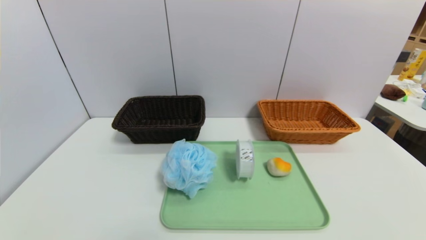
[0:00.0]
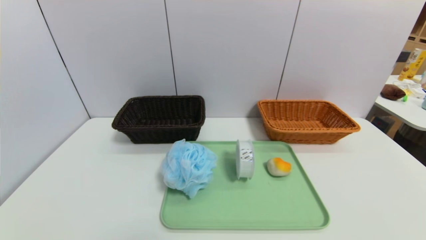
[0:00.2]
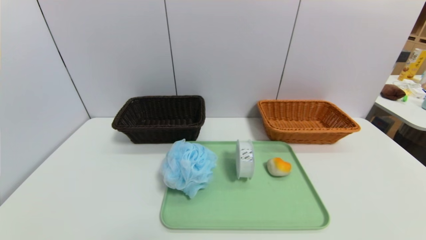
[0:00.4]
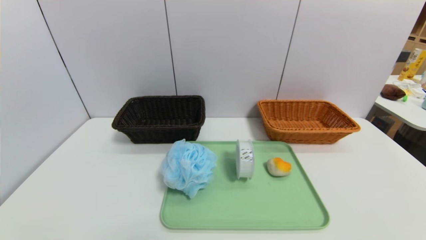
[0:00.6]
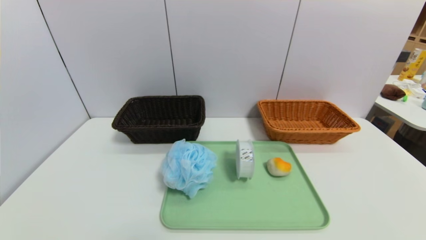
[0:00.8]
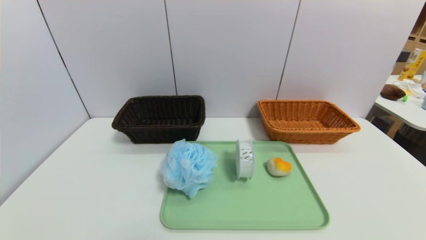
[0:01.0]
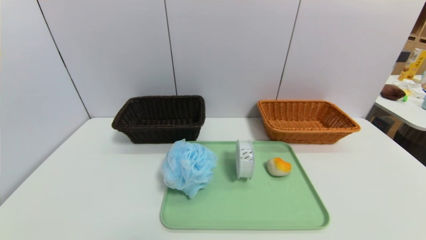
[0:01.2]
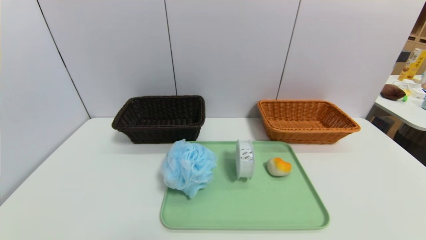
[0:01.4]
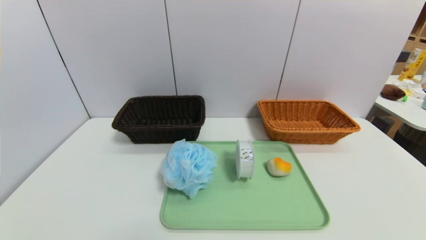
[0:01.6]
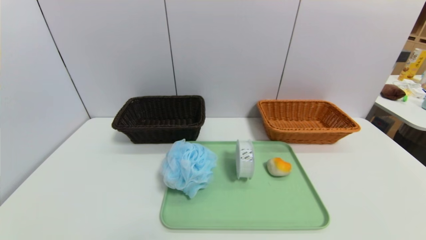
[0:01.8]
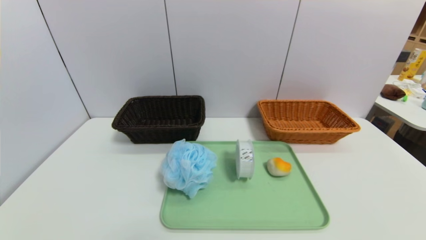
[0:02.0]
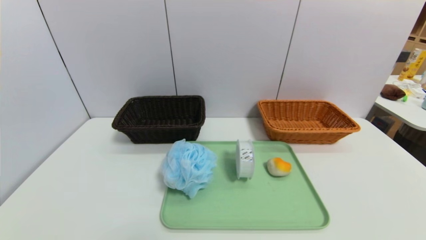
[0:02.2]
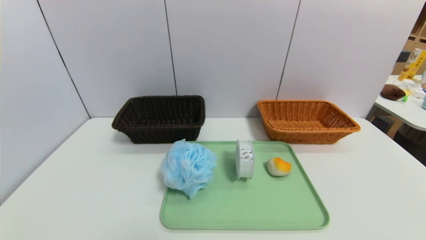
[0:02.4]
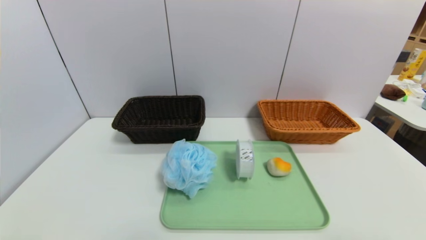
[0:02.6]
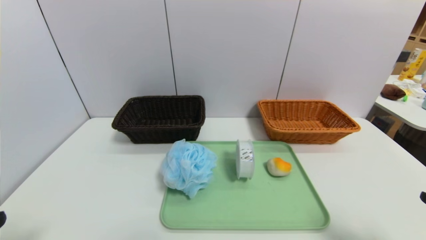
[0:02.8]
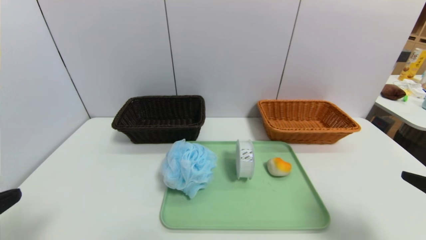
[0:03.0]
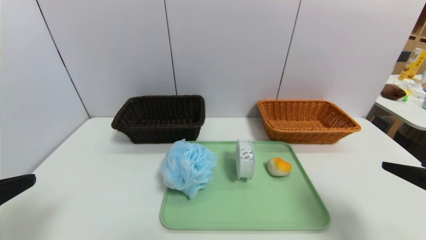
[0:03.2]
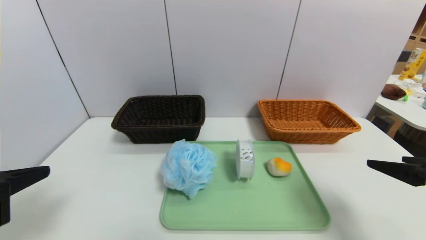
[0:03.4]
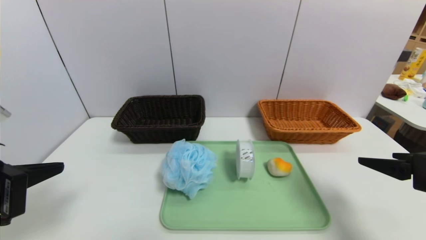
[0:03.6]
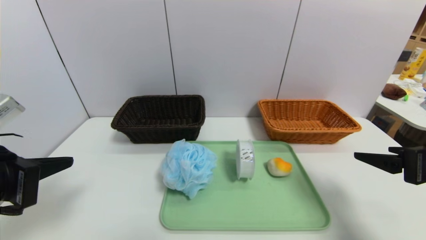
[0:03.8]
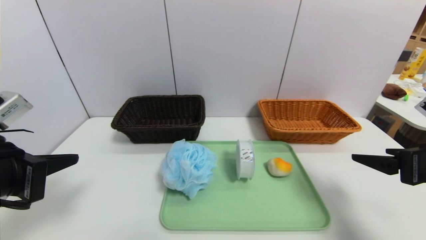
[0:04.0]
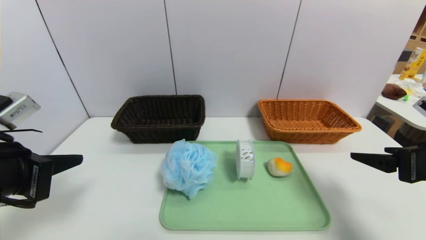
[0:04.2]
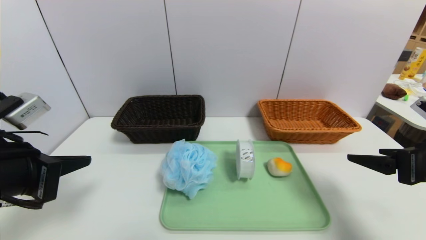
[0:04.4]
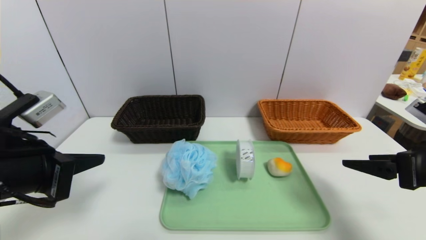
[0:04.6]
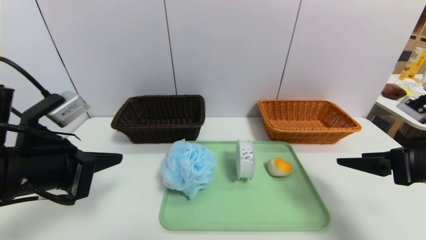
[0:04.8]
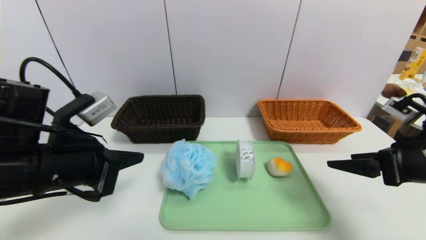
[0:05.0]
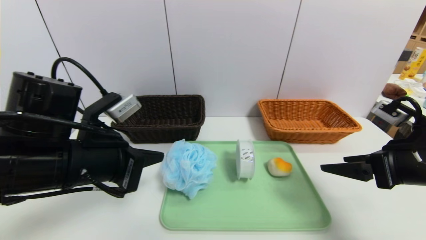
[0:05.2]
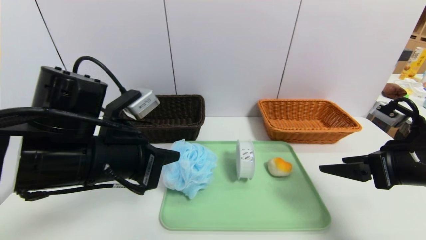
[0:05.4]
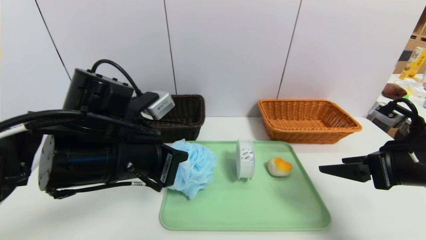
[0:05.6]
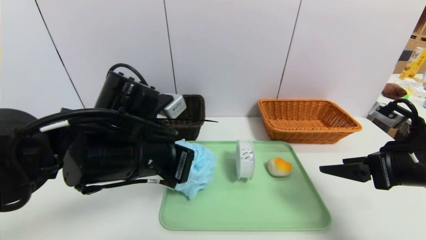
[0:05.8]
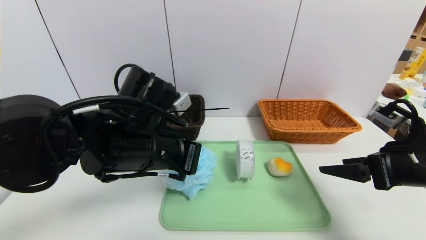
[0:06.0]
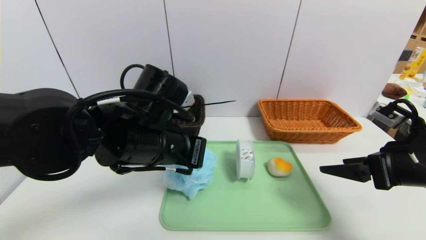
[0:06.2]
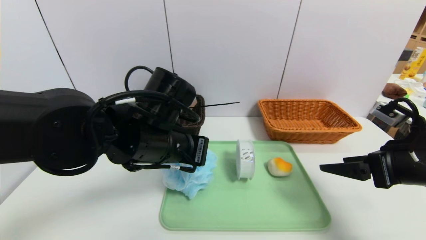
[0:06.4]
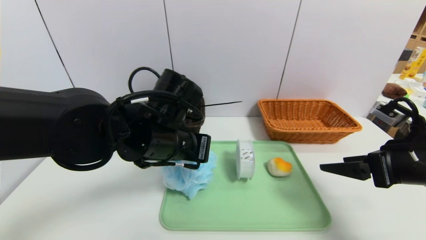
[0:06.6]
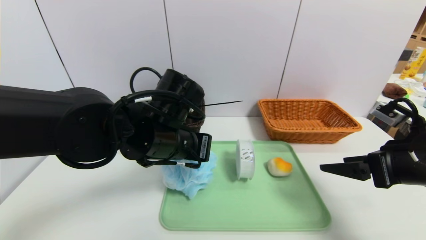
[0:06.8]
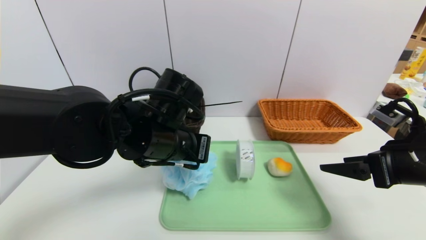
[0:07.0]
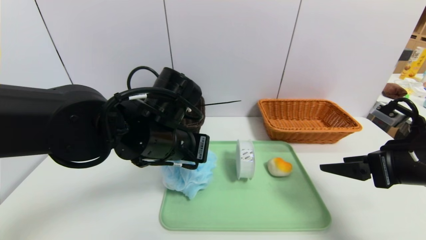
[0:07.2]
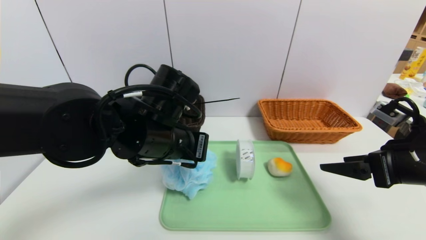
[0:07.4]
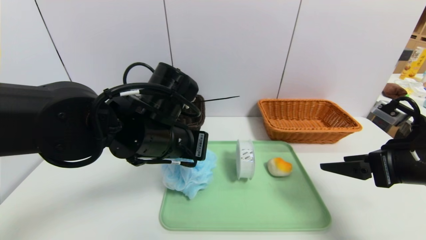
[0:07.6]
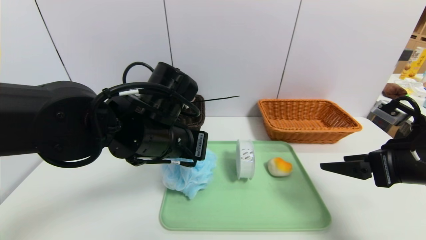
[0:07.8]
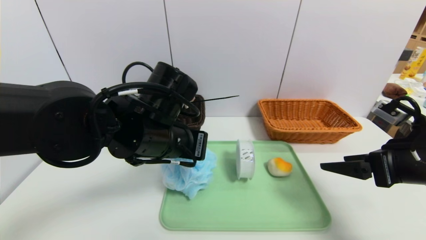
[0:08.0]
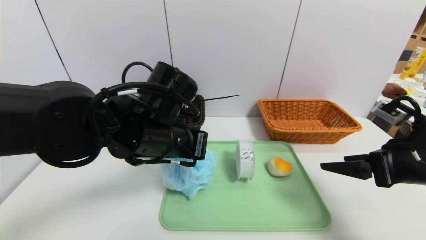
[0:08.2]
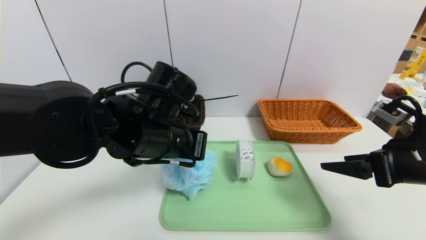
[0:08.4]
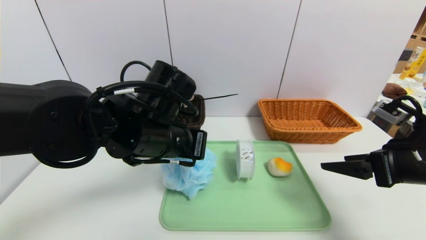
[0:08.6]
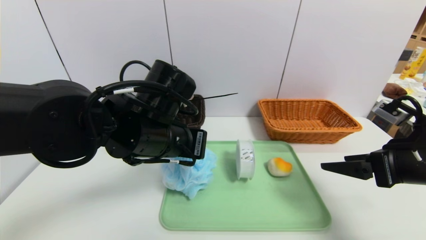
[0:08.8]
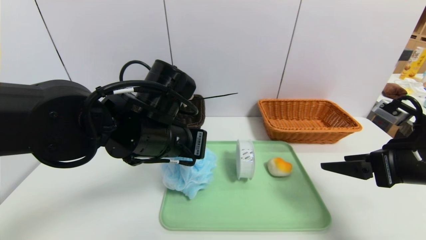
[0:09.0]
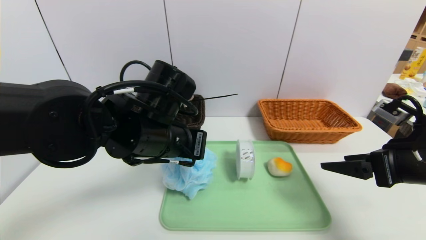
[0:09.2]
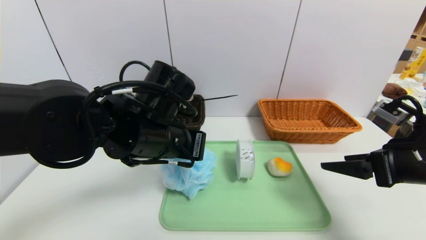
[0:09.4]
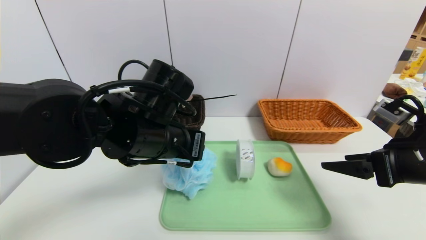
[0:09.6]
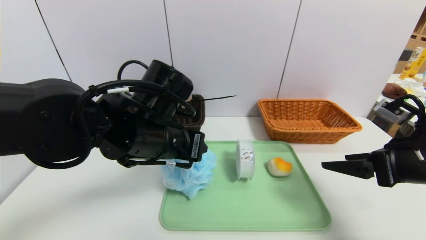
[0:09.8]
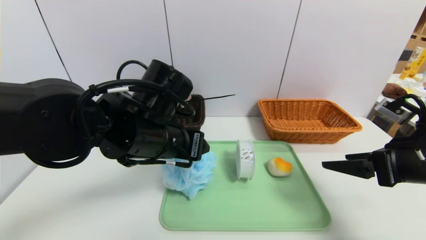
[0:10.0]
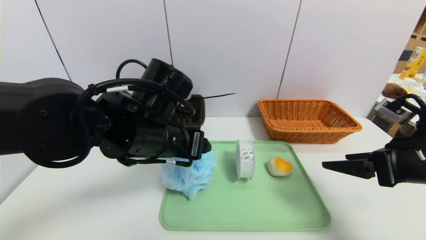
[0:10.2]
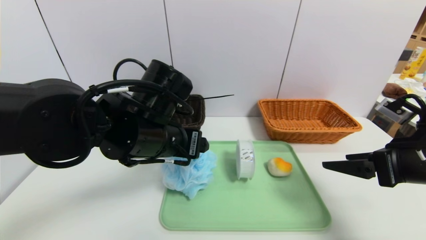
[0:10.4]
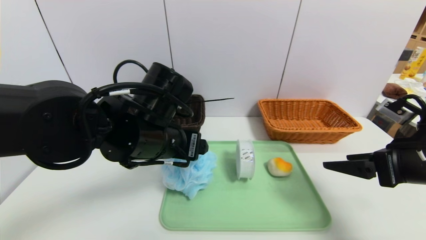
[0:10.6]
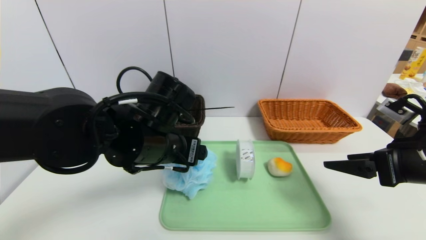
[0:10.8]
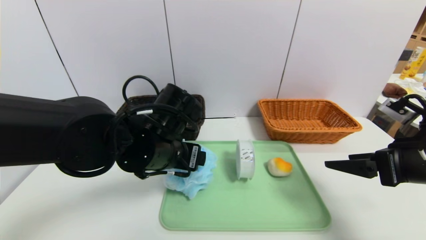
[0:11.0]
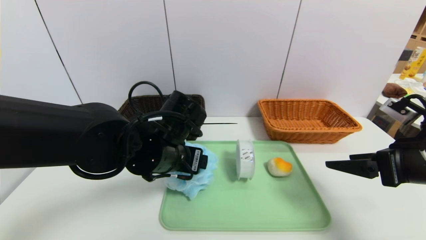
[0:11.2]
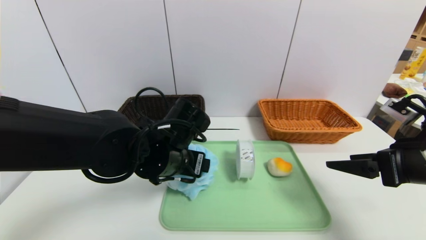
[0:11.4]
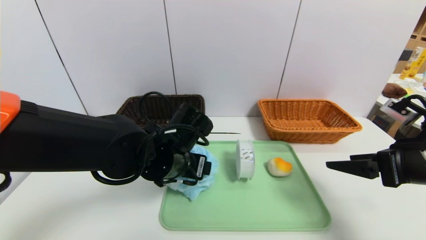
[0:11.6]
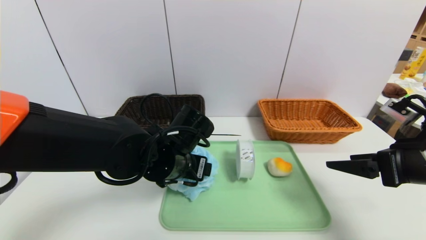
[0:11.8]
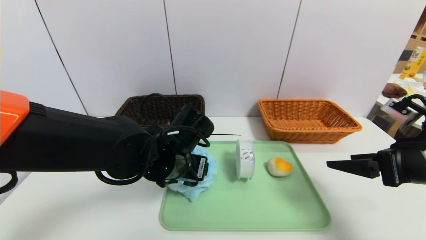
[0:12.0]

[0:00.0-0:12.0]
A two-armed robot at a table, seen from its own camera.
Task of the whole recording: place the food in the right basket with the right gripper, and place the non food items in the left basket with the left gripper.
0:00.0 to 0:01.6: Neither gripper changes place.
0:01.6 to 0:03.0: Both grippers travel together upward and forward, roughly 15 cm.
0:03.0 to 0:04.4: The grippers both shift forward by roughly 10 cm.
0:04.4 to 0:06.0: The left gripper moves to the right and forward, roughly 20 cm.
0:06.0 to 0:07.6: The grippers move only a little.
0:07.6 to 0:09.0: Both grippers stay about where they are.
0:09.0 to 0:10.4: The left gripper opens its fingers.
0:10.4 to 0:12.0: The left gripper heads downward, covering about 5 cm.

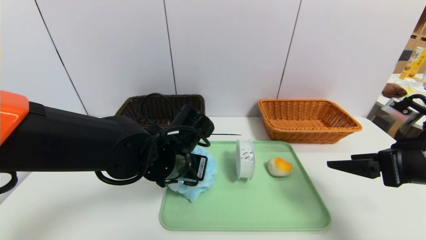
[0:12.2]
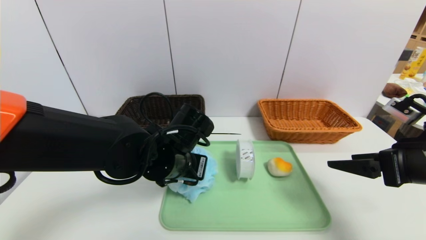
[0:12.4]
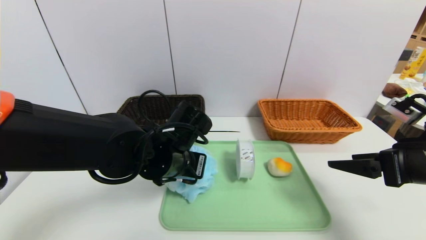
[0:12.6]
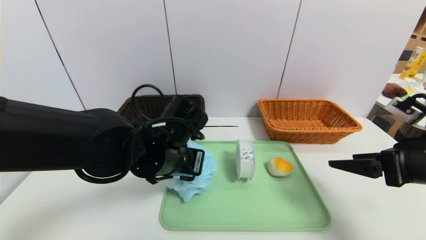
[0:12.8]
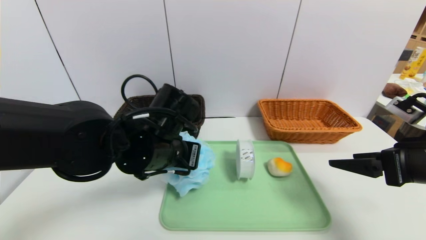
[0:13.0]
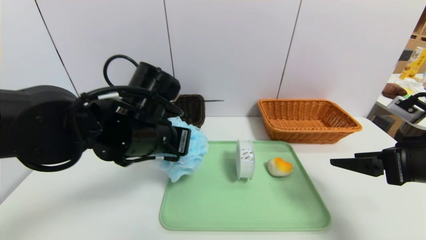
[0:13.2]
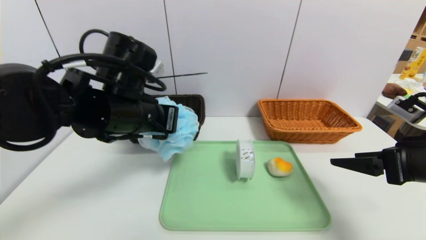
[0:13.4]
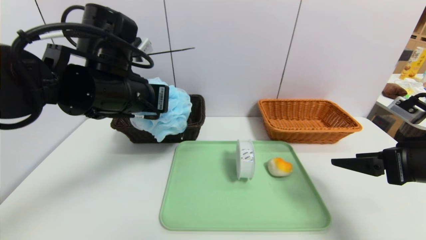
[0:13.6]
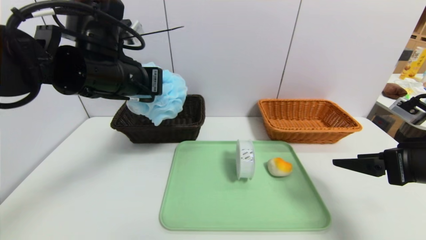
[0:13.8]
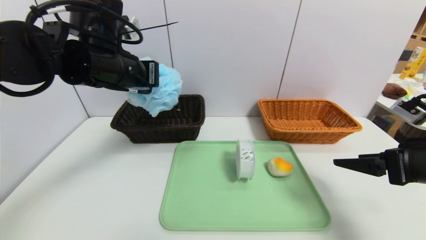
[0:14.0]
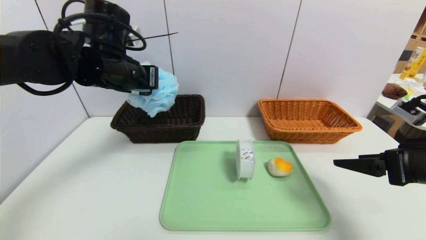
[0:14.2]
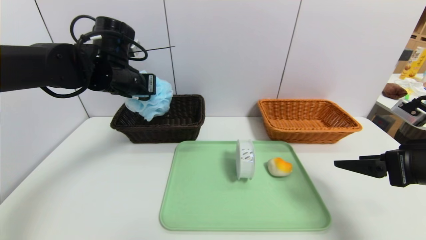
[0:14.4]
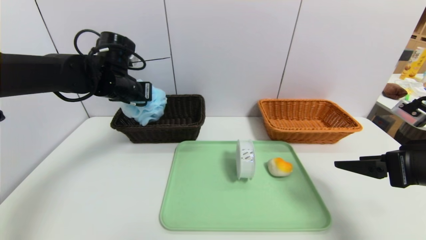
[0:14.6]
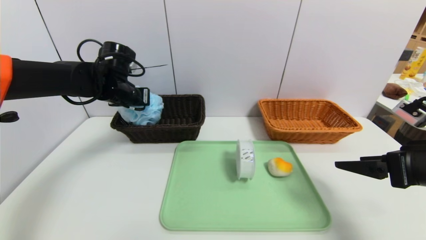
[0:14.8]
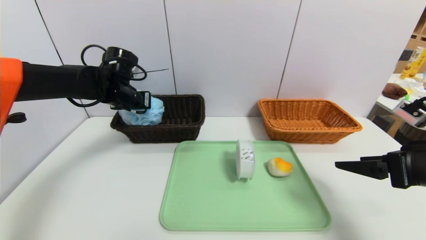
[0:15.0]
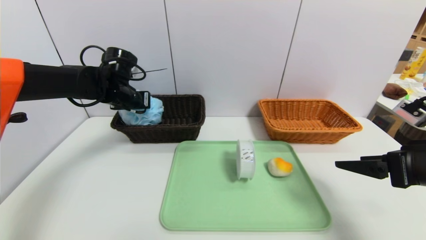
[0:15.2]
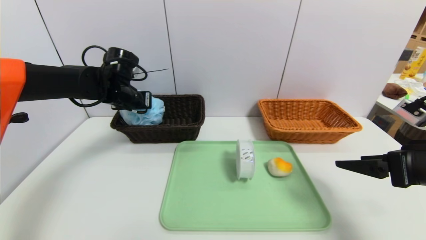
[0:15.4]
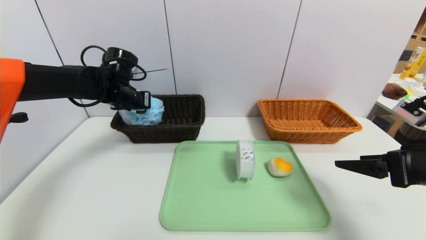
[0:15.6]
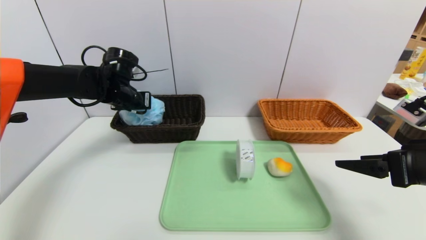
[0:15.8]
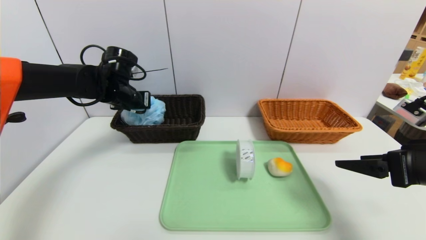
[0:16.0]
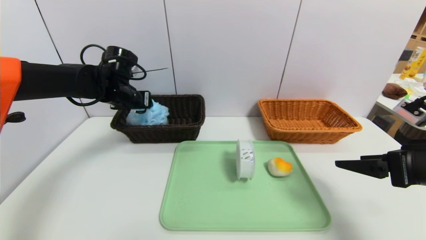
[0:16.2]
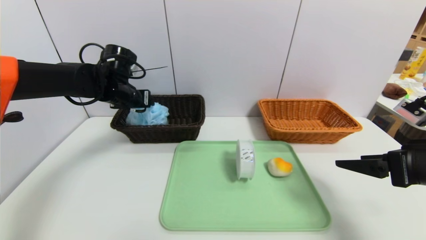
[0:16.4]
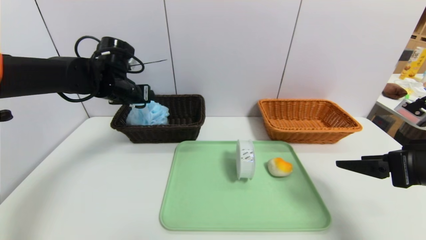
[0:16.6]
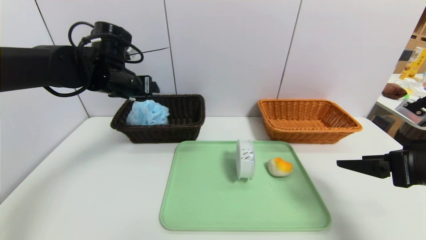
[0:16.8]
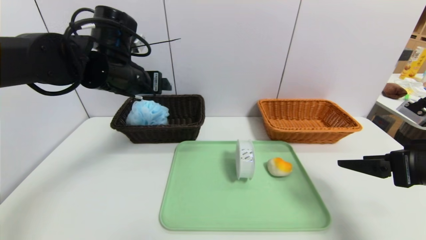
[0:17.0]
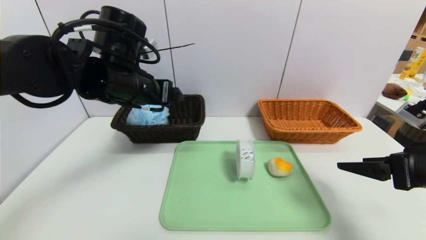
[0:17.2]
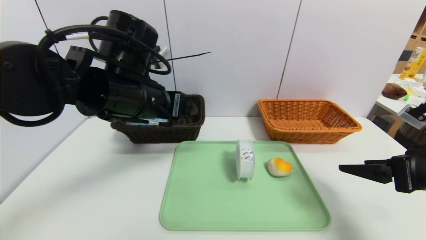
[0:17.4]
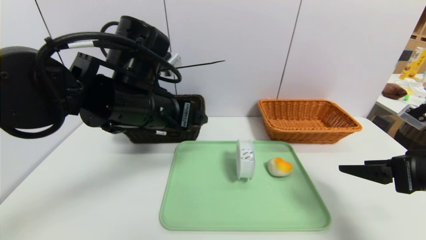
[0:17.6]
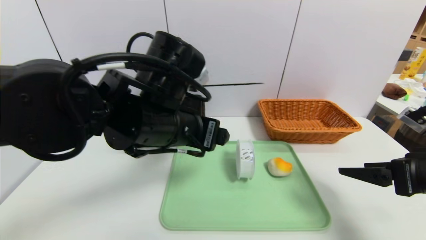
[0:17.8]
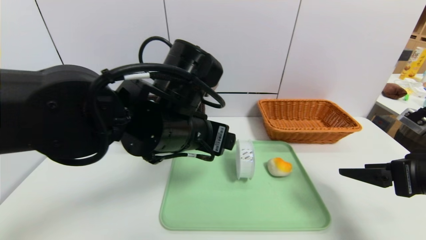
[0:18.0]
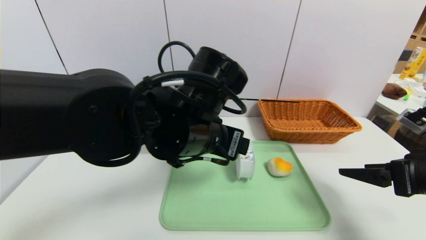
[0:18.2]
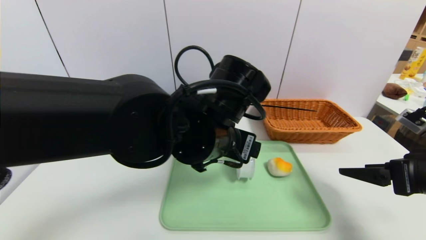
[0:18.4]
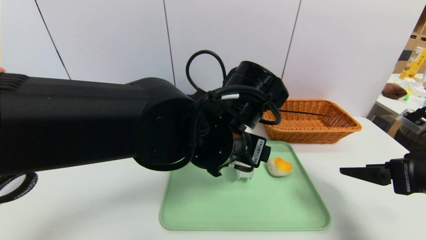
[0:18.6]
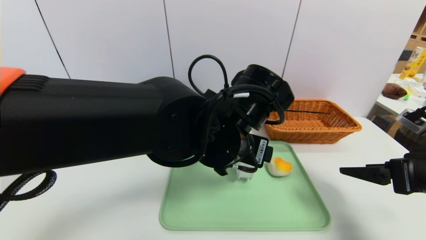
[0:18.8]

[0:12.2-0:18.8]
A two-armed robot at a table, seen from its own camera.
Task of the whole recording: place the food in the right basket with the right gripper, and place the non food items in the left basket with the left gripper.
Step, 0:12.2 to 0:16.4: Grasp the shower sphere and put it in the left basket.
0:12.2 to 0:13.8: The left gripper is displaced upward and to the left by approximately 15 cm, and closes its fingers.
0:13.8 to 0:15.4: The left gripper moves forward, downward and to the left, approximately 15 cm.
0:15.4 to 0:17.2: The left gripper shifts some 15 cm backward, to the right and upward, and opens up.
0:17.2 to 0:18.8: The left gripper shifts approximately 20 cm to the right and backward.
